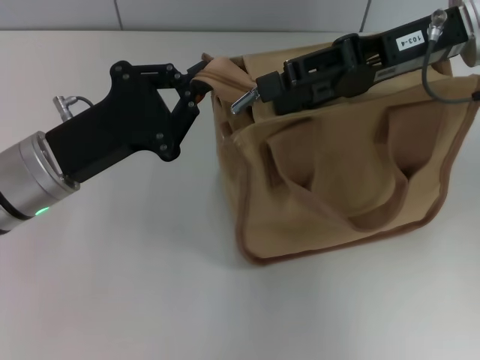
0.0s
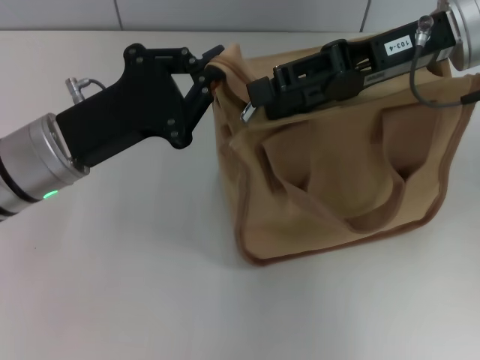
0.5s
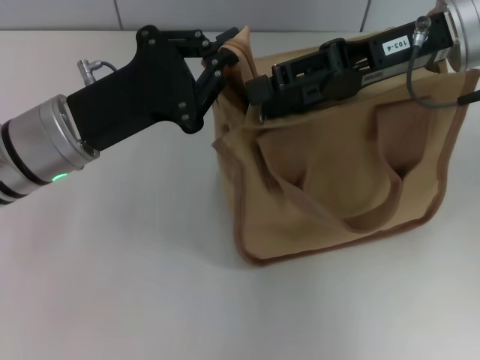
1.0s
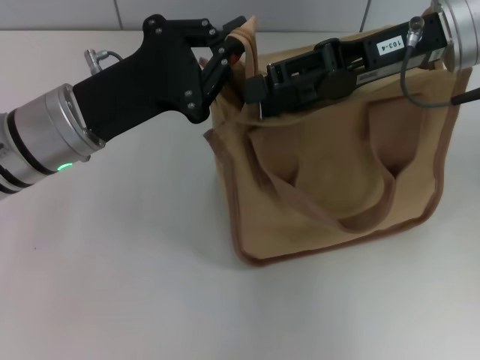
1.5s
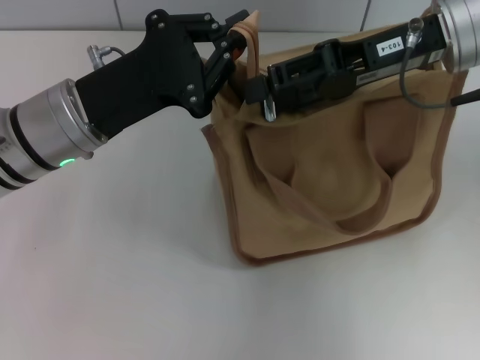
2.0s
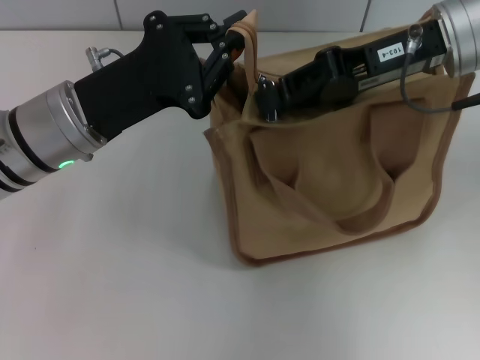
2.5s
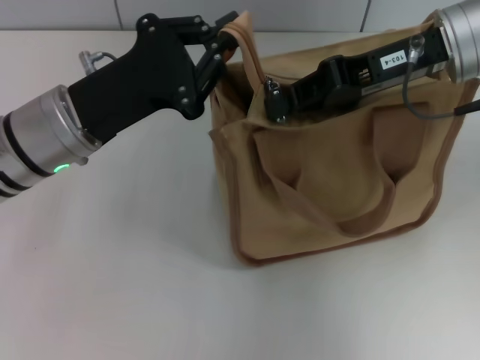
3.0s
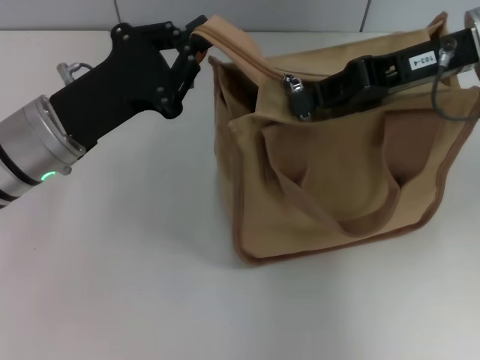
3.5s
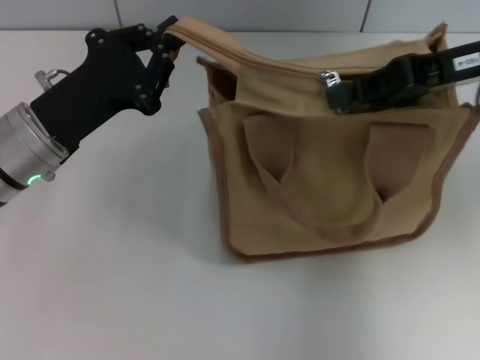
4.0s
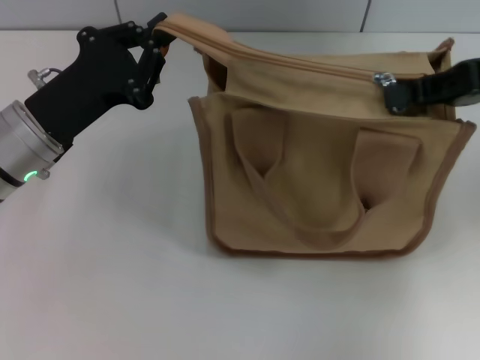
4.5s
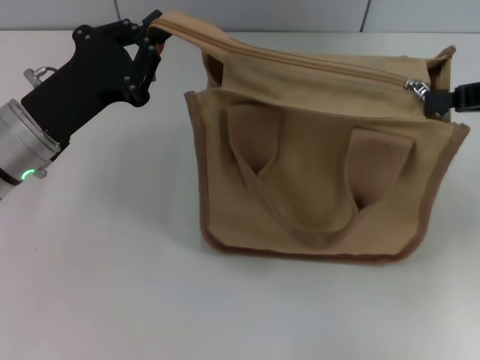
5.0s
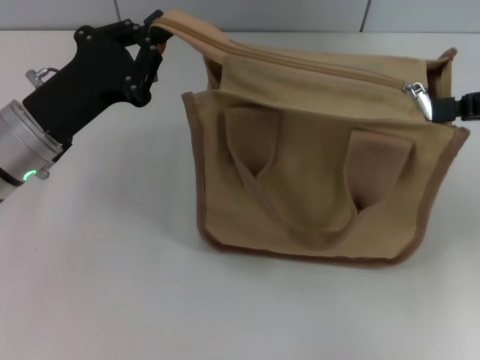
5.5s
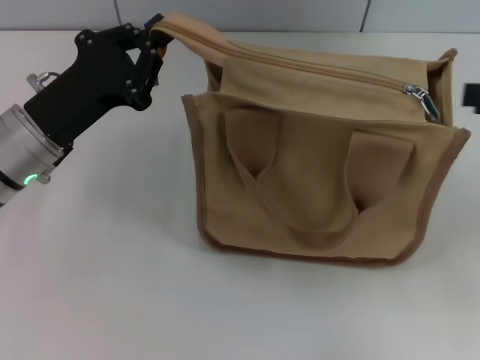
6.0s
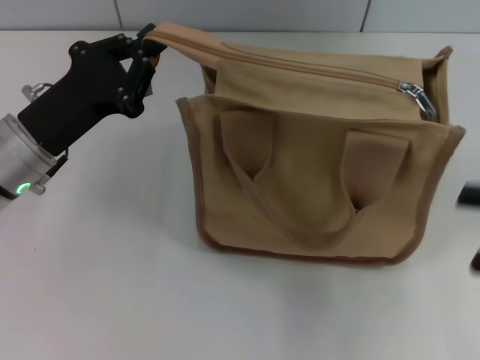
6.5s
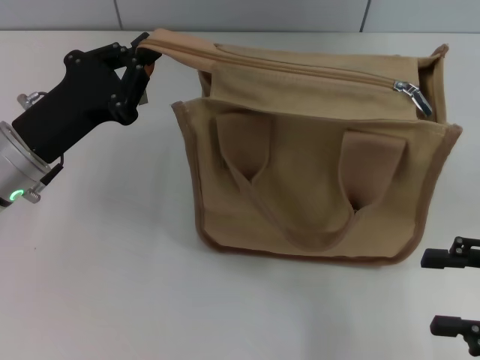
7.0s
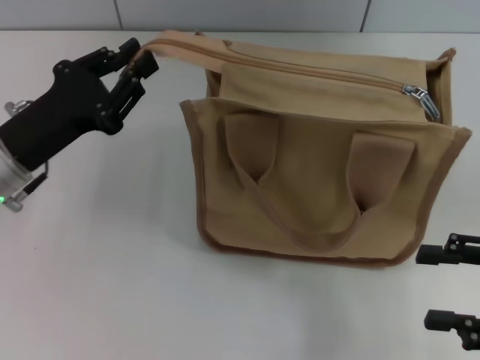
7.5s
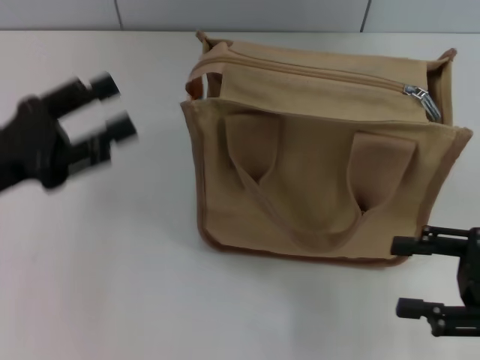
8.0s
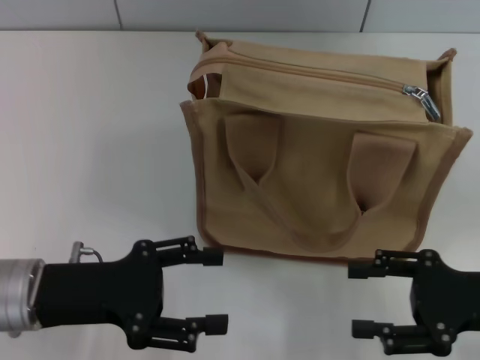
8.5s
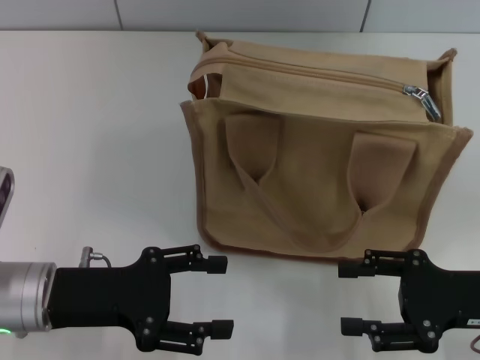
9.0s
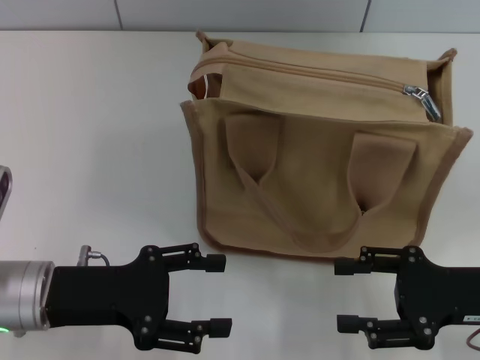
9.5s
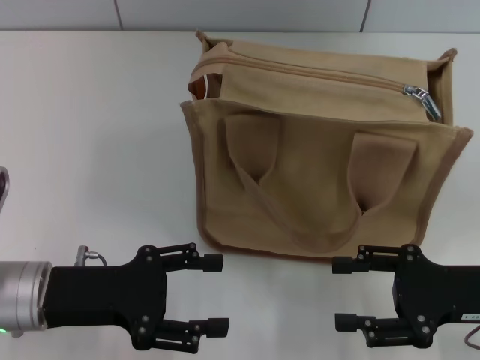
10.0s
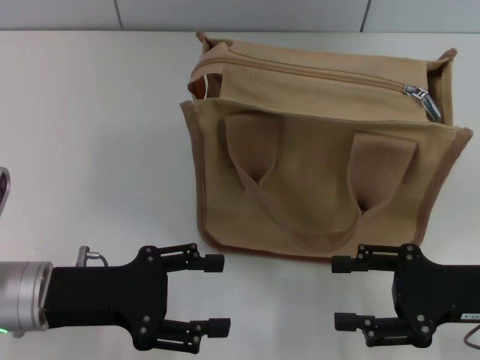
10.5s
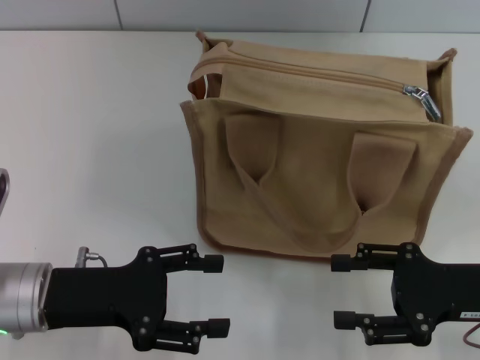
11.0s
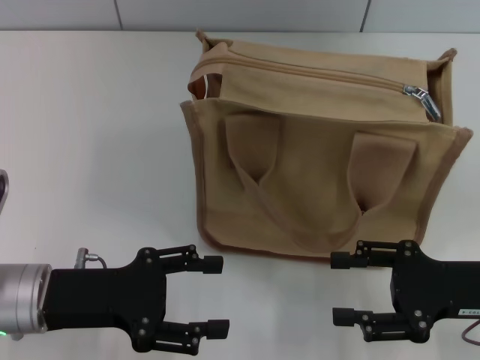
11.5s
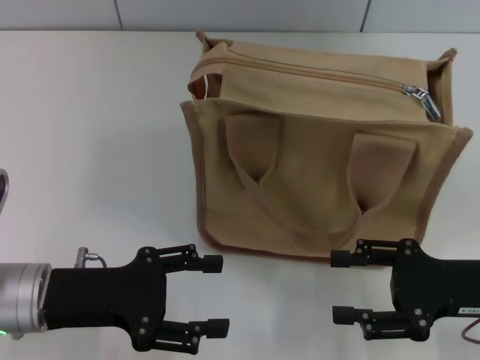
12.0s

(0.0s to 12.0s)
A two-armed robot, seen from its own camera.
Step, 0.0s - 5.5s: Pull up the zipper with your right hand.
Step, 6.0s - 7.5s: Grab the zipper with your left hand.
0.0s - 2.0s: The left gripper moves about 5 cm.
2.0s - 4.0s: The right gripper moves to the right, roughly 5 cm, and closes its fingers.
4.0s - 6.0s: The right gripper heads to the right and backward, covering about 15 cm, and opens.
6.0s - 8.0s: The right gripper shifts about 15 cm downward and backward, and opens, while the left gripper travels to the left and backward by roughly 10 cm, and opens.
8.0s - 10.0s: The right gripper shifts by some 5 cm. Meanwhile the left gripper shifts roughly 10 cm to the right and downward, and opens its fingers.
10.0s - 12.0s: Both grippers stay about where they are.

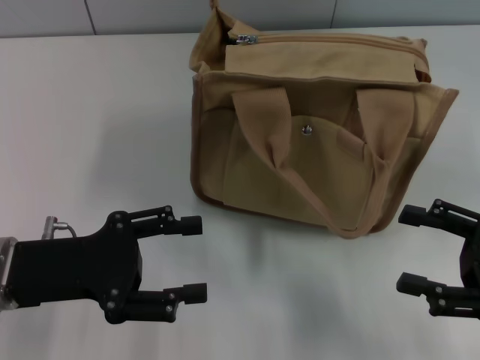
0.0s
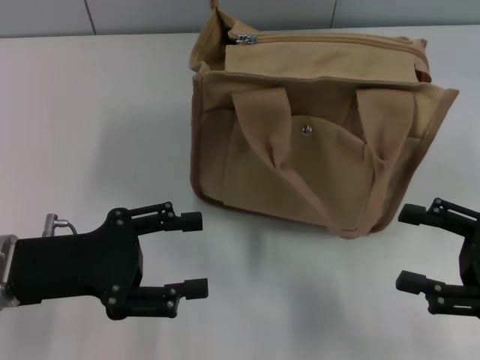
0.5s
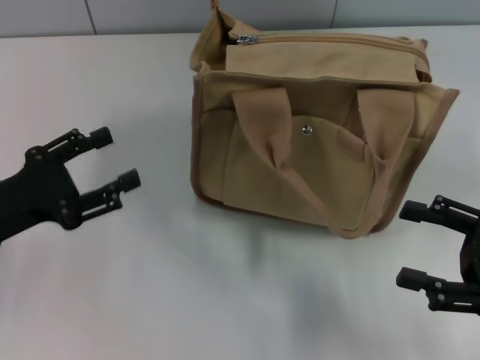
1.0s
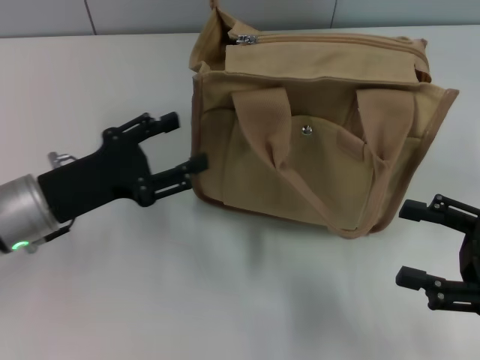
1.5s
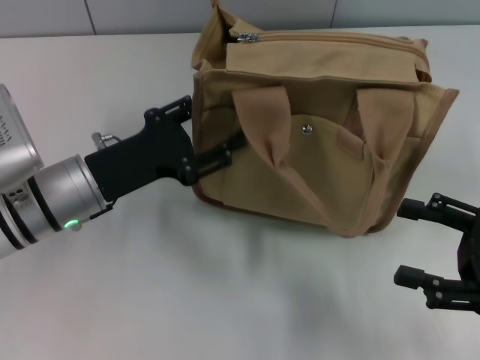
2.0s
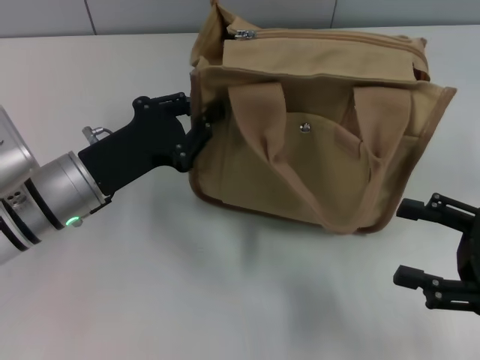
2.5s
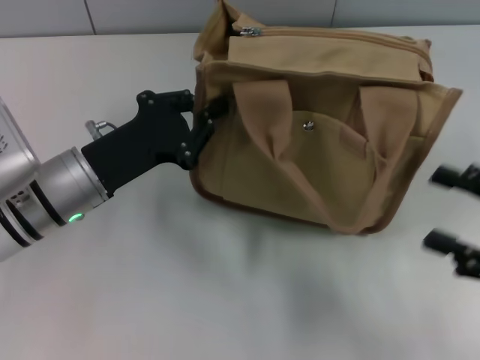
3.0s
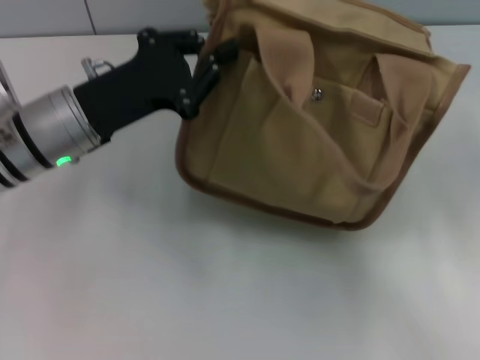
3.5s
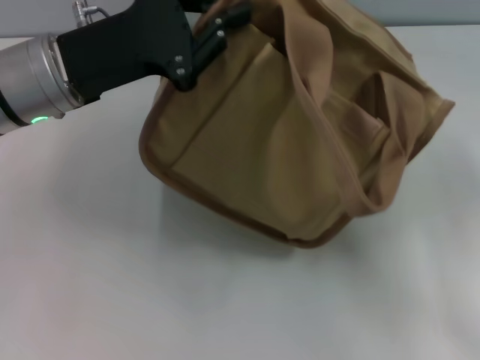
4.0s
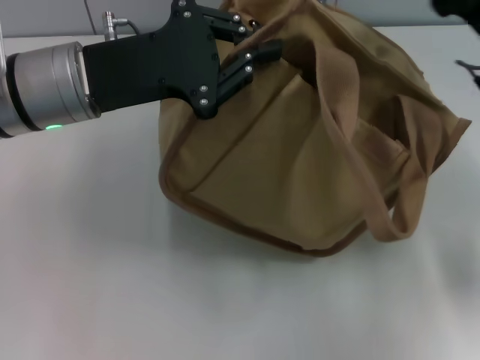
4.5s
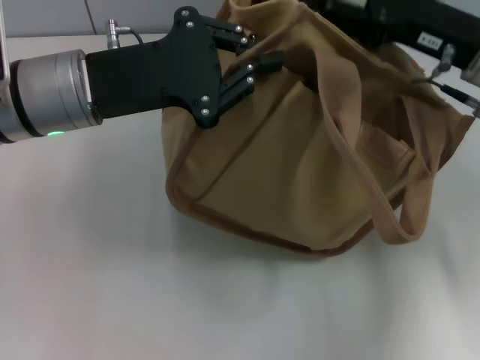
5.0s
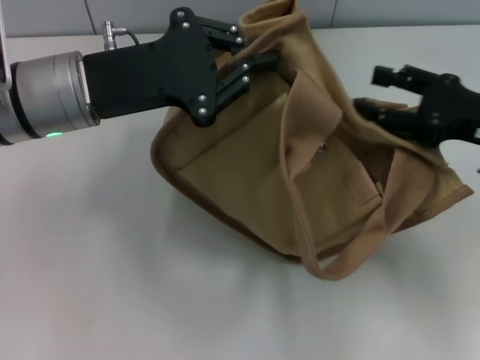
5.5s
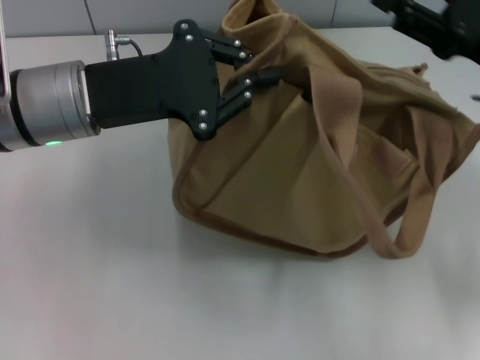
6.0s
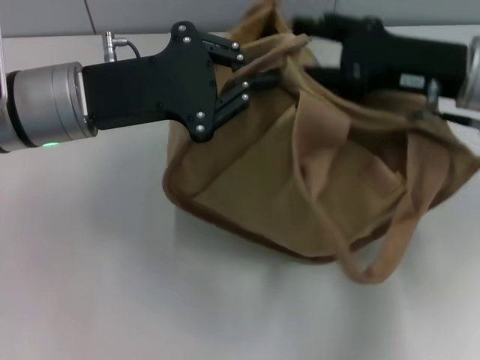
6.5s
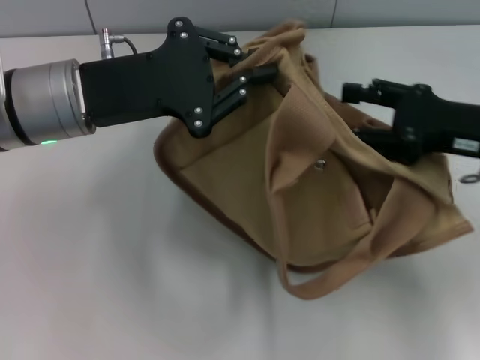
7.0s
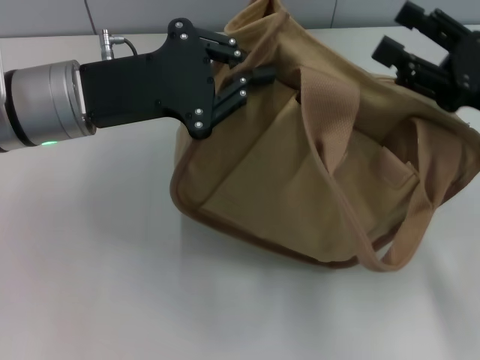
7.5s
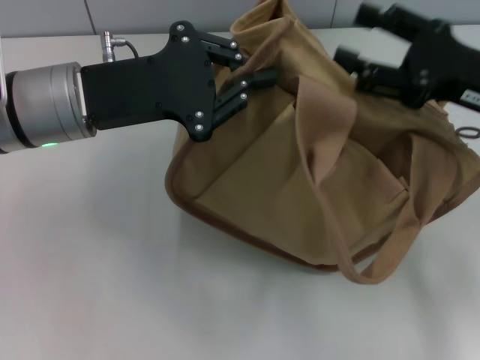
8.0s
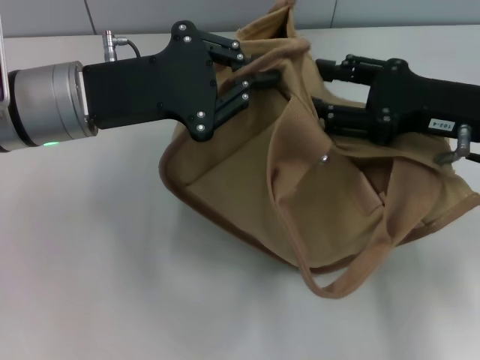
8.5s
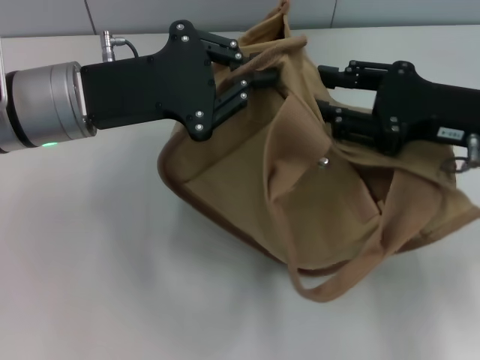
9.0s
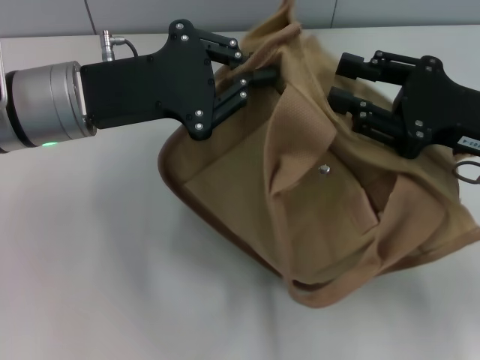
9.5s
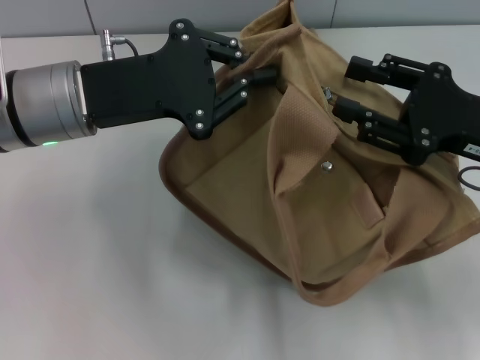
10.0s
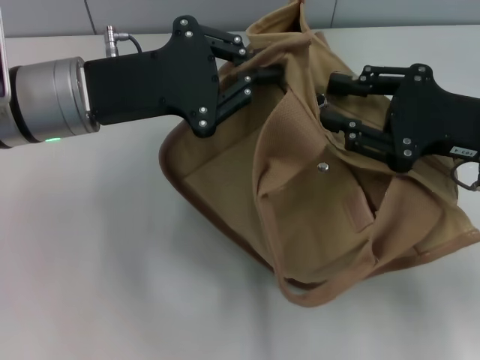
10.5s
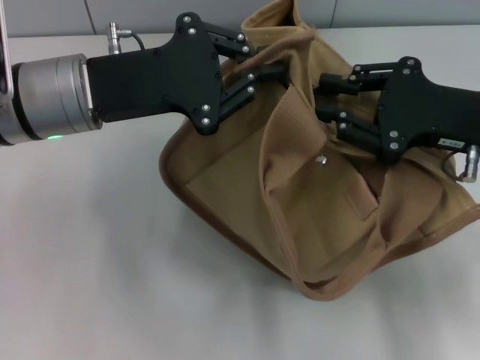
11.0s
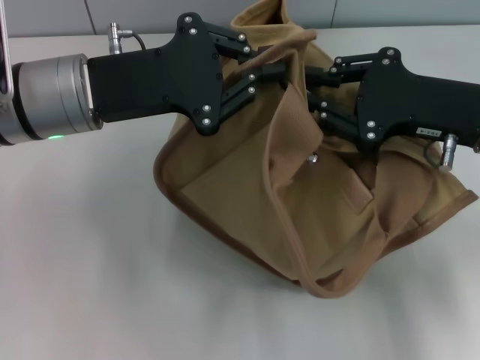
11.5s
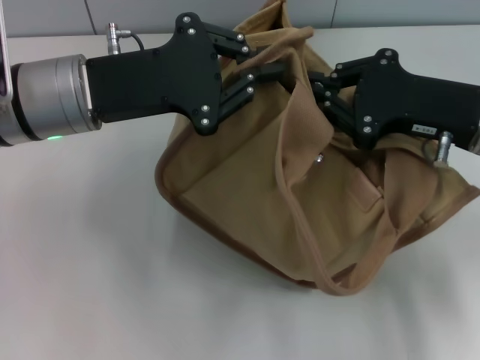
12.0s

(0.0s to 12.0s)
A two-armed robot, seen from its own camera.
0.0s - 2.0s: The left gripper shifts approximately 10 cm forward and to the right.
2.0s - 4.0s: The right gripper shifts by approximately 5 cm. Meanwhile the left gripper travels upward by approximately 10 cm, and closes.
4.0s - 6.0s: The right gripper goes about 10 cm forward.
10.0s - 12.0s: The right gripper closes.

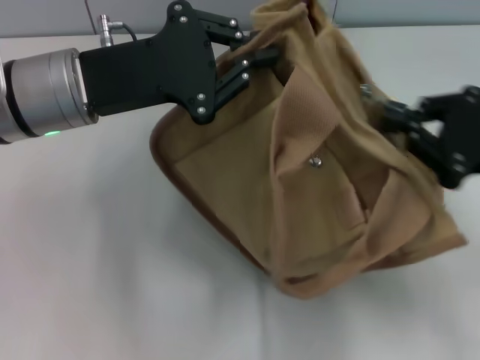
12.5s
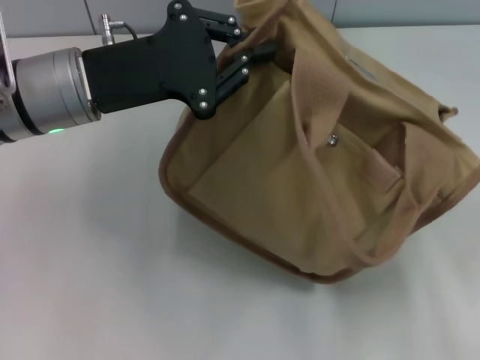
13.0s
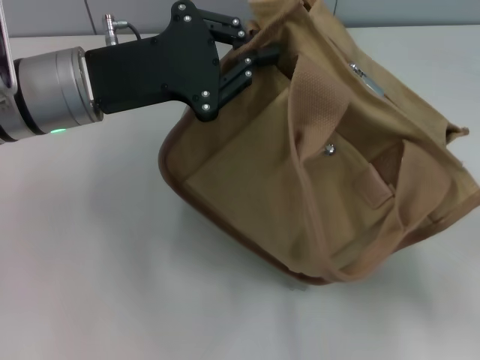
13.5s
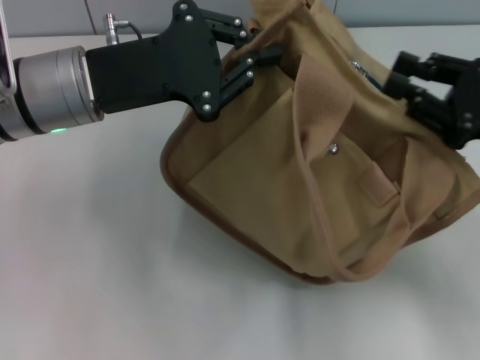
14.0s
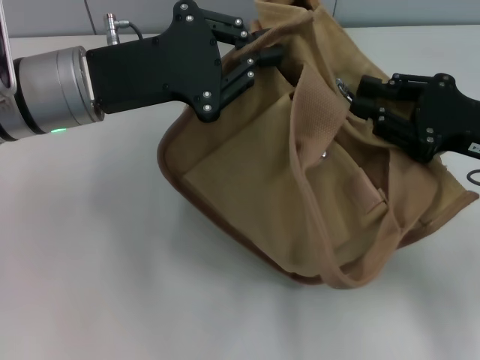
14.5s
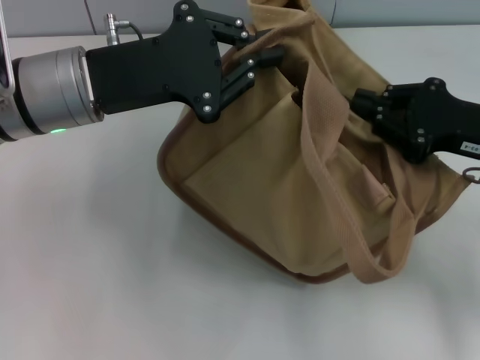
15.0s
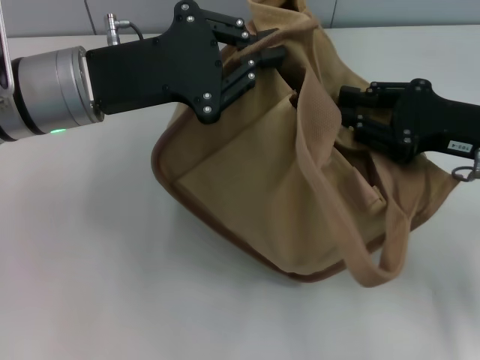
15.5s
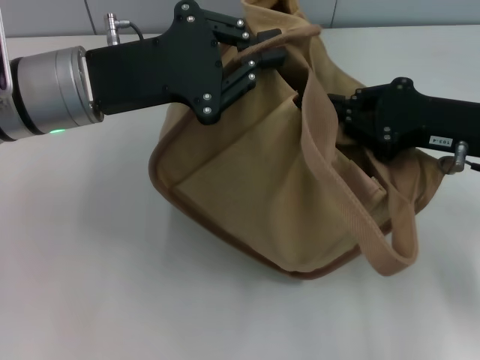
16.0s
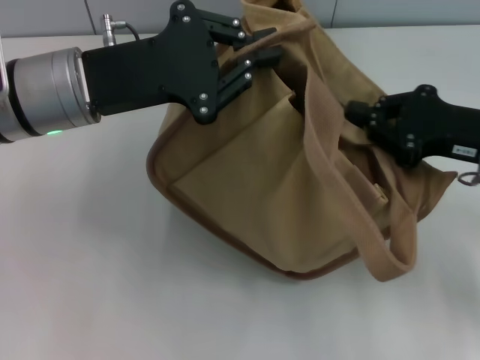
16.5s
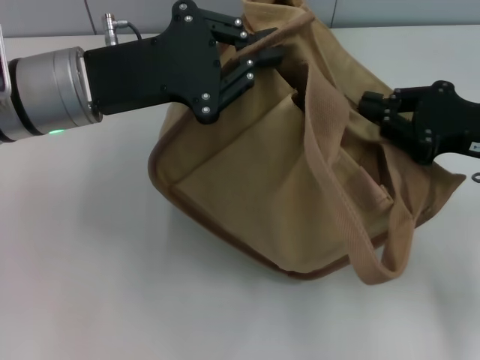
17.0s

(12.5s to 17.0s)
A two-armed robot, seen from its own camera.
12.5s - 14.5s: The right gripper goes backward and returns, roughly 10 cm each way, and opens up.
14.5s - 17.0s: The right gripper closes.
